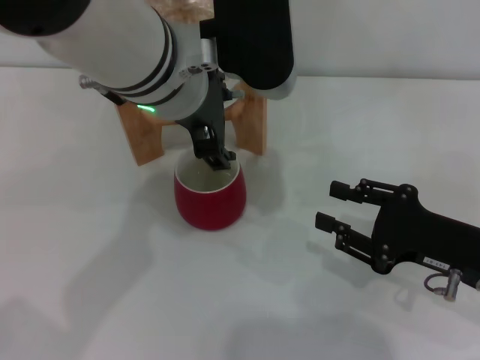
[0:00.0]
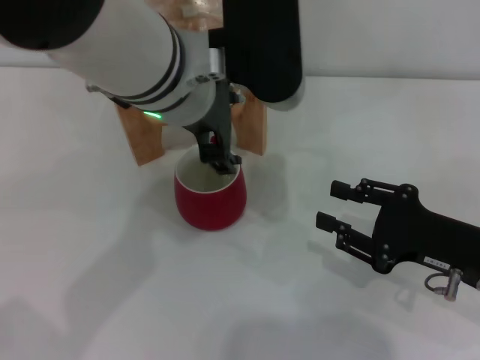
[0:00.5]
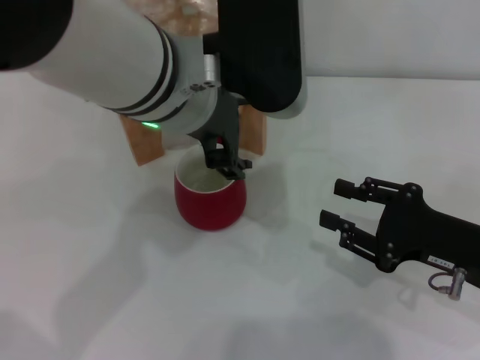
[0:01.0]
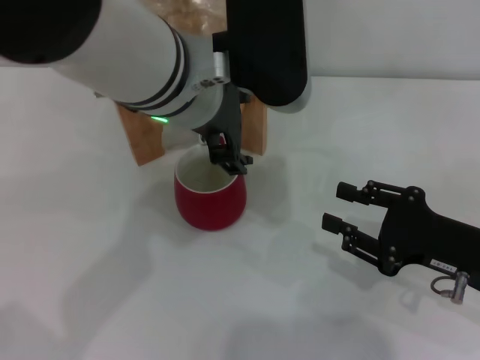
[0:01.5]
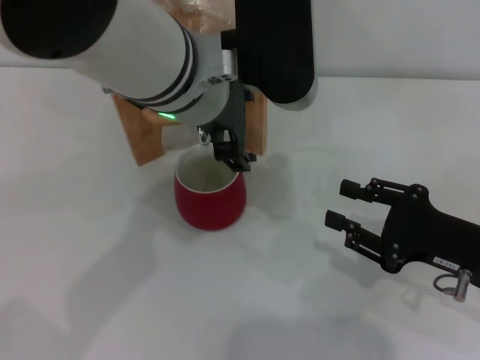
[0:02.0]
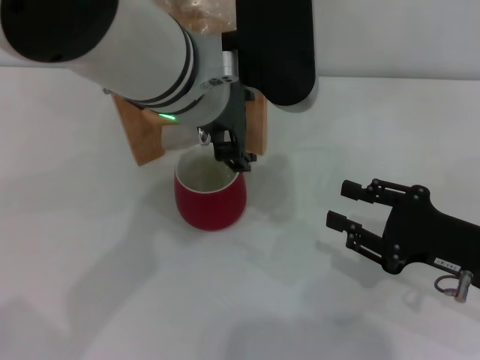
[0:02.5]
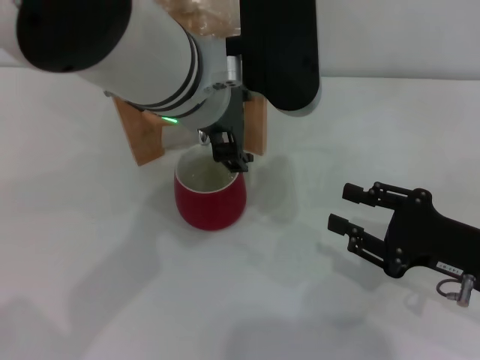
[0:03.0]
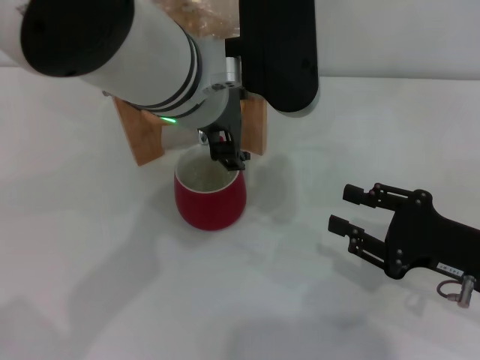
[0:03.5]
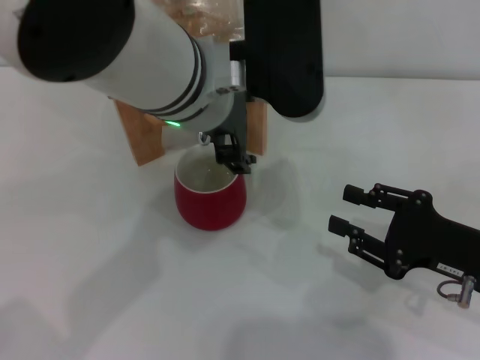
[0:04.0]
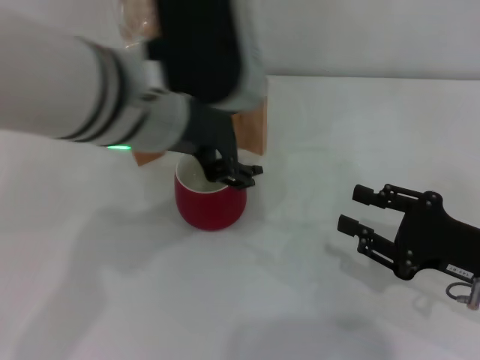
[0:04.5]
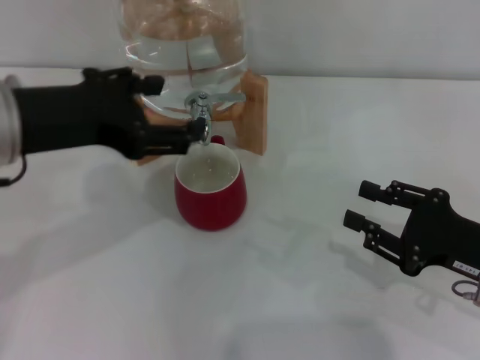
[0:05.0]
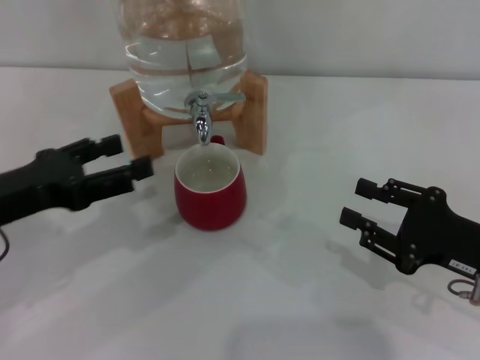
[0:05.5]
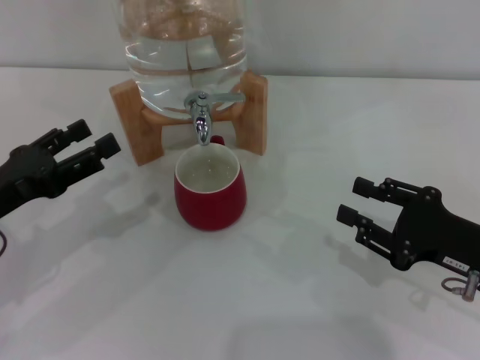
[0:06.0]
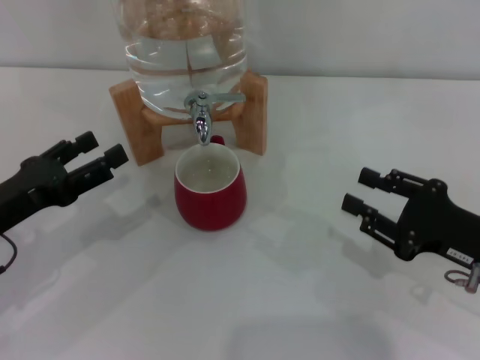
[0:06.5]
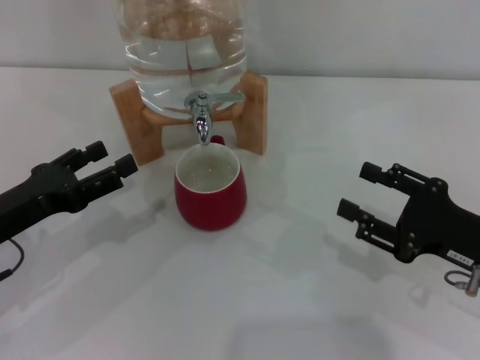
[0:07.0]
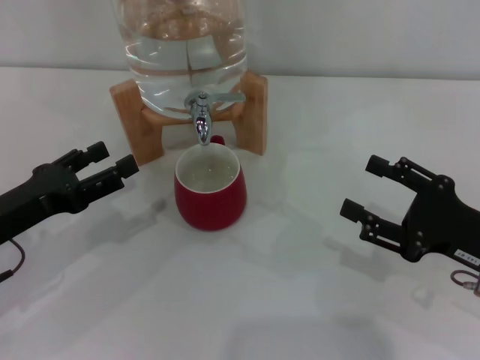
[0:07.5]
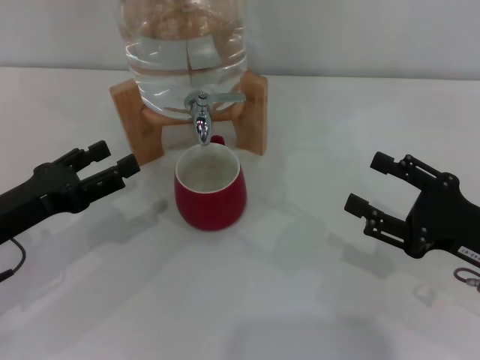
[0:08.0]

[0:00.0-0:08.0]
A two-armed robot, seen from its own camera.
Task of the whole recording: the right gripper pick up the red cup and place it horizontally under the faucet, the left gripper turn on the faucet to fill the cup, and then turn off the faucet.
Step, 0.0 to 4.5 s: Close the dispenser valve with the left gripper.
0.0 to 2.0 s: The grippers stay close to where they were, moving slightly.
2.0 to 4.0 s: Both grippers stay put.
4.0 to 6.0 s: The left gripper shifts some 30 cm to the left and downward.
6.0 to 8.0 s: The right gripper opens up.

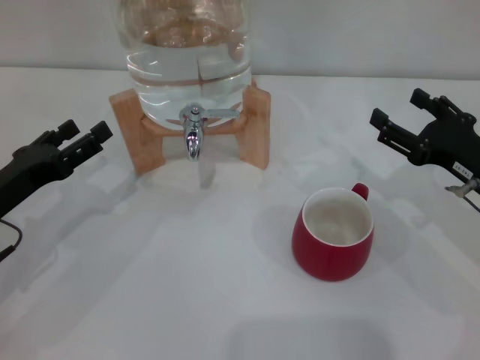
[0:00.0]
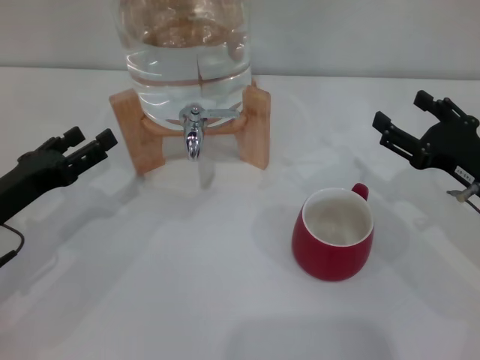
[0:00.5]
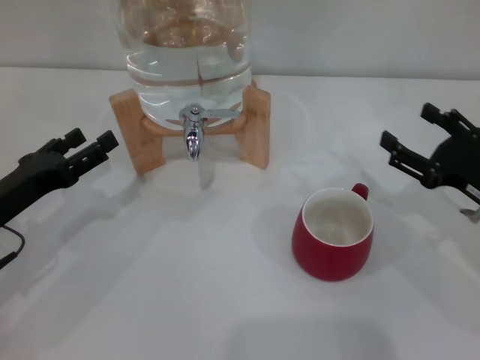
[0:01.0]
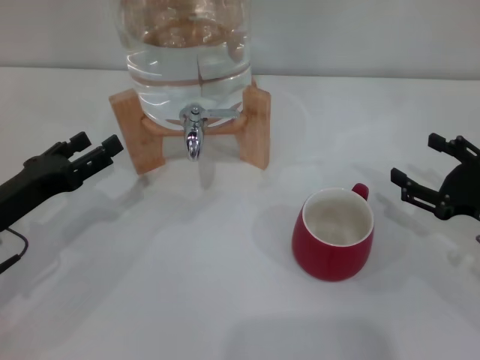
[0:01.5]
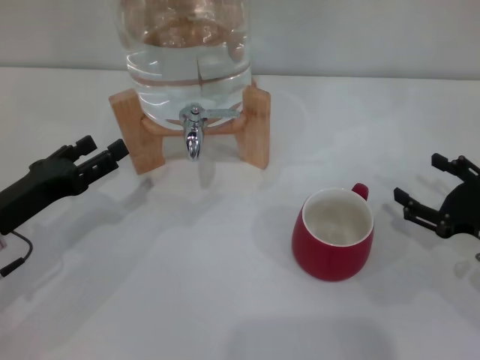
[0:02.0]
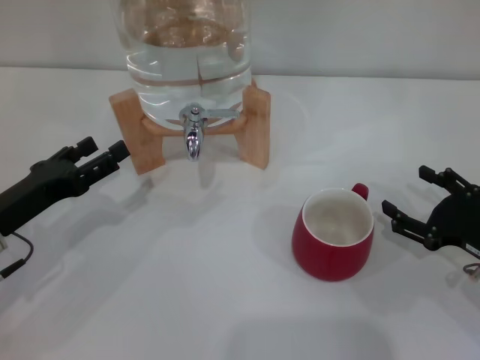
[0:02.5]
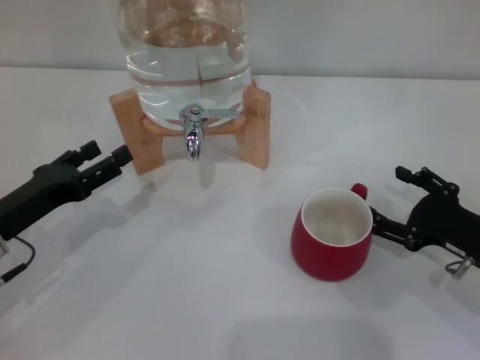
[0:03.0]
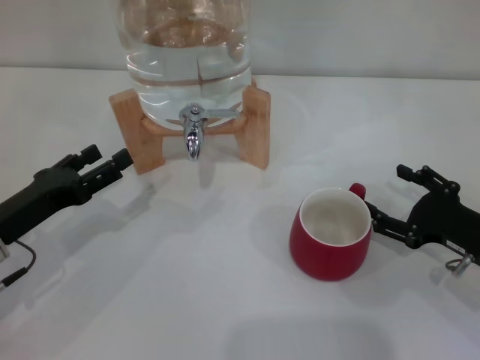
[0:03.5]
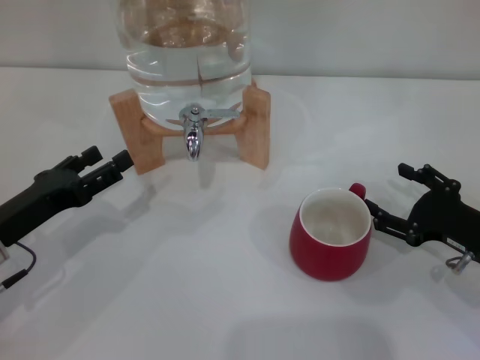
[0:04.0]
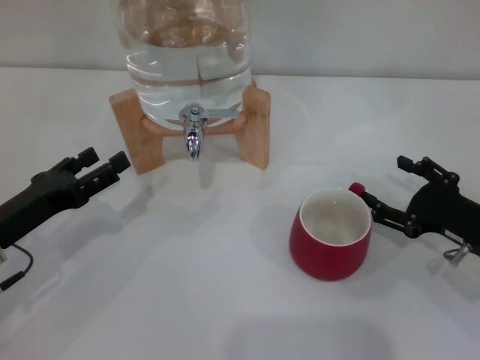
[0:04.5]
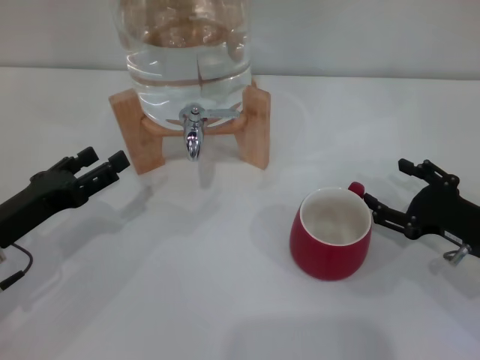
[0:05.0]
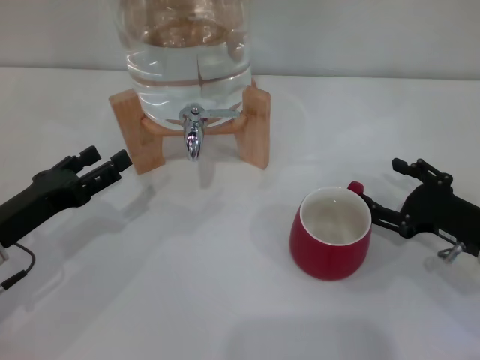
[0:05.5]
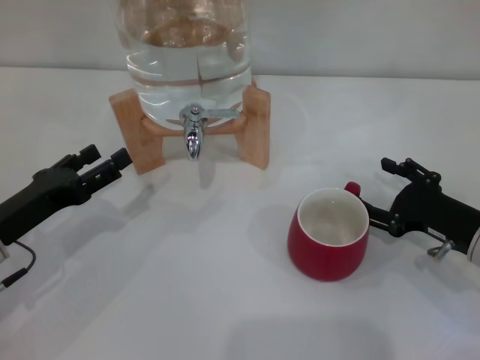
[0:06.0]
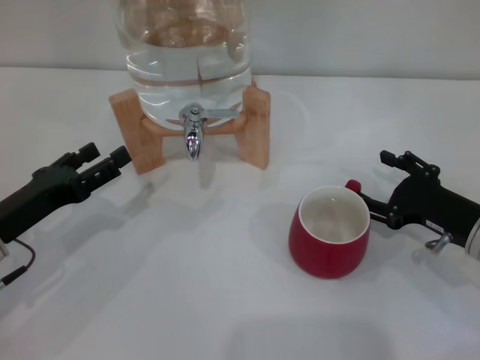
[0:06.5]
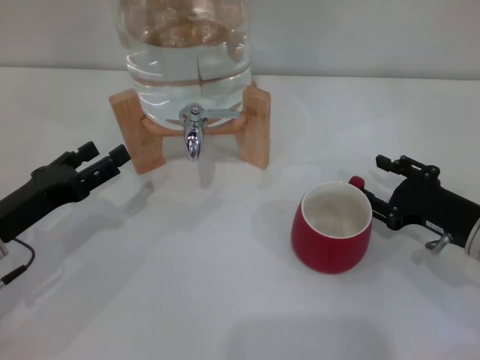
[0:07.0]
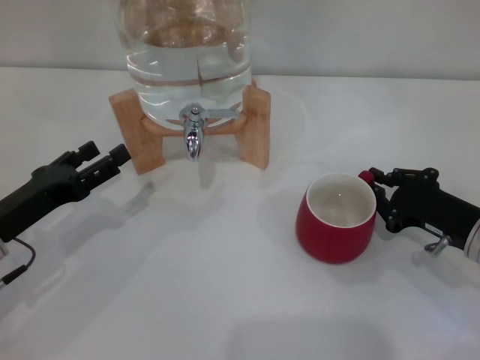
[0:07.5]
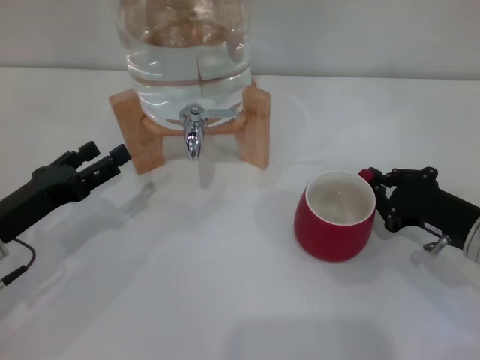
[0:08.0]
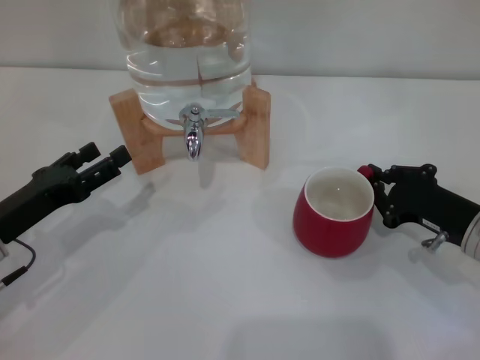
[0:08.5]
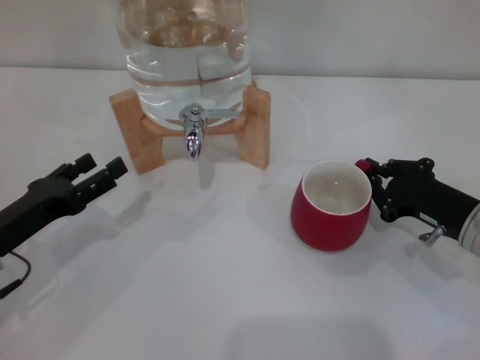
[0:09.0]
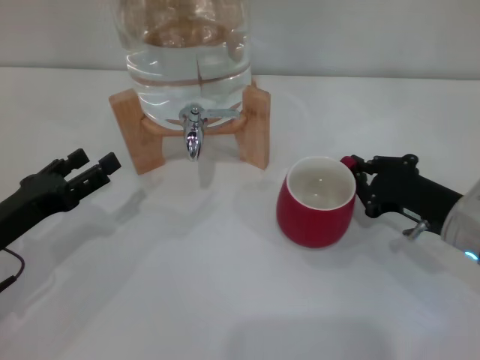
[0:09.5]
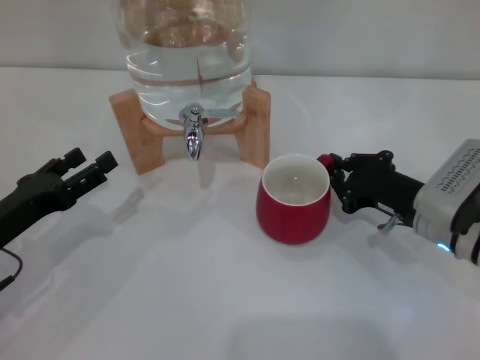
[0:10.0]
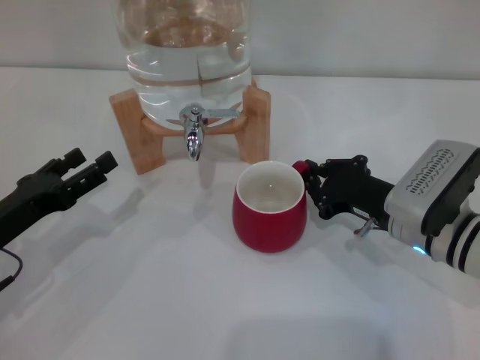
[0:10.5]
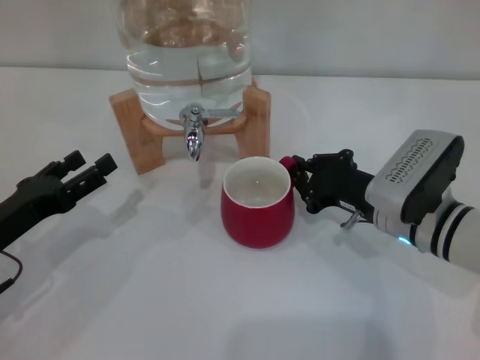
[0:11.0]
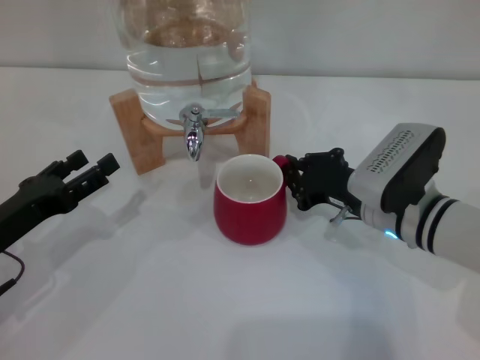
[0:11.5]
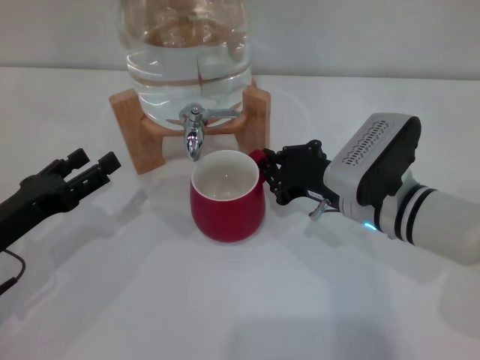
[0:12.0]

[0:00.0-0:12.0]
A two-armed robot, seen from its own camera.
Task of the whole recording: the right gripper pick up the red cup and place it horizontally under the faucet, the left gripper turn on the faucet to fill the cup, and then turn off the faucet.
0.0 to 2.0 s: The right gripper changes place by about 5 cm.
2.0 to 6.0 s: There are only small adjustments of the grippers.
6.0 to 8.0 s: The right gripper closes.
8.0 to 10.0 s: The right gripper shifts approximately 5 cm to the left.
10.0 to 12.0 s: The right gripper shifts about 10 cm to the left.

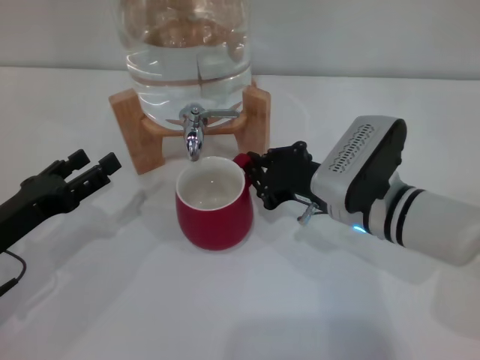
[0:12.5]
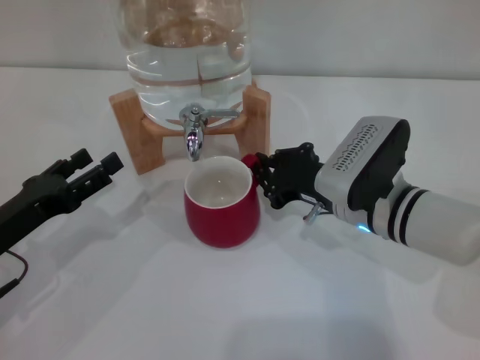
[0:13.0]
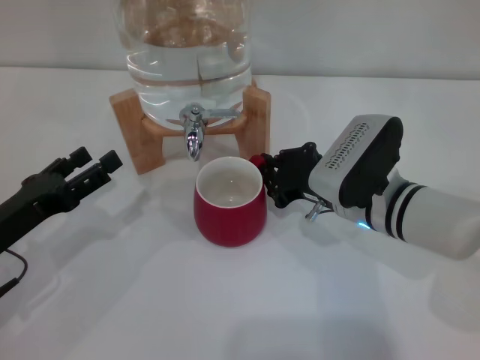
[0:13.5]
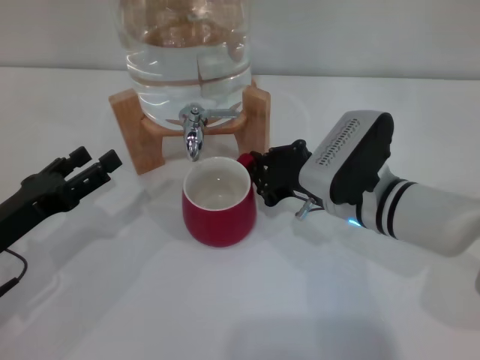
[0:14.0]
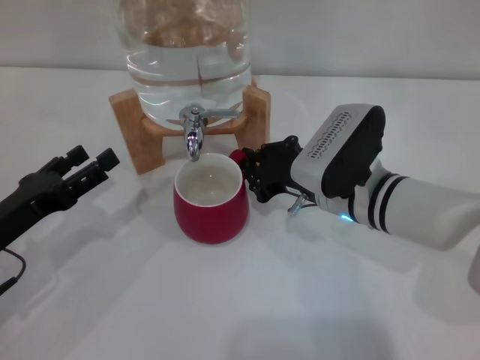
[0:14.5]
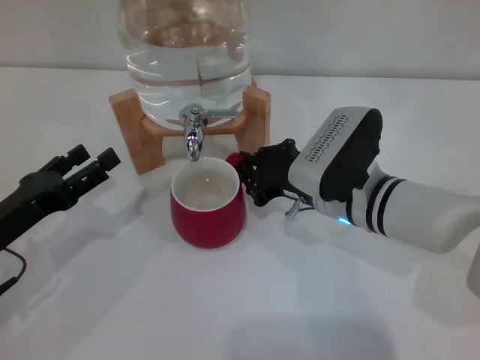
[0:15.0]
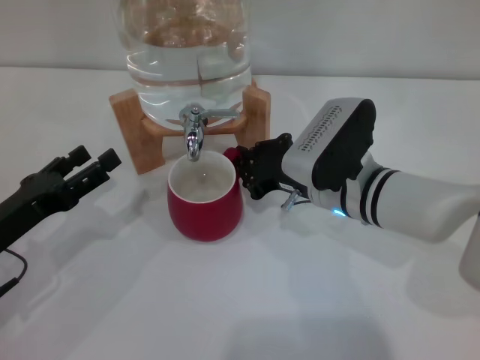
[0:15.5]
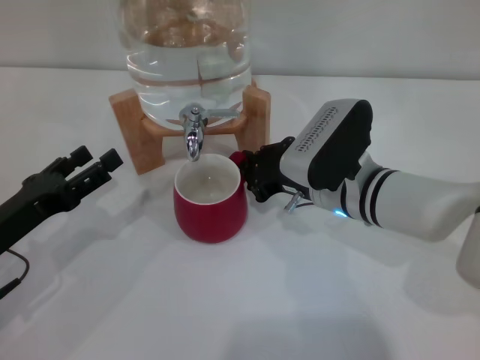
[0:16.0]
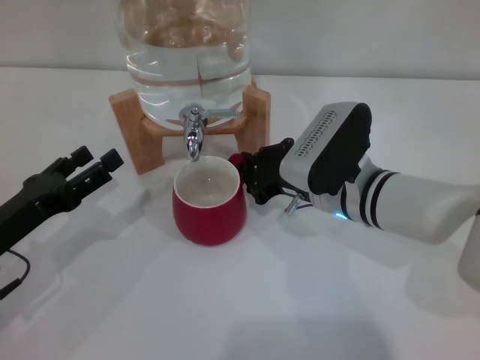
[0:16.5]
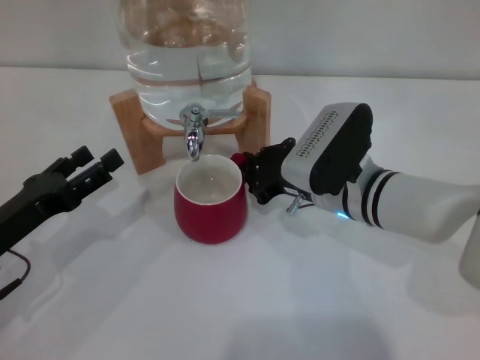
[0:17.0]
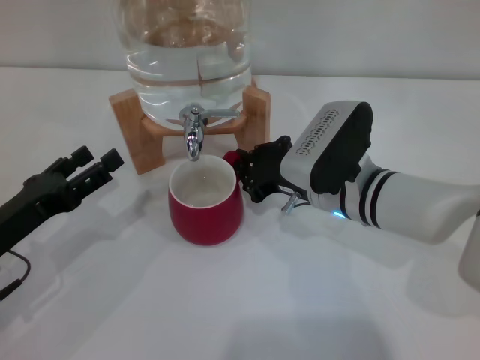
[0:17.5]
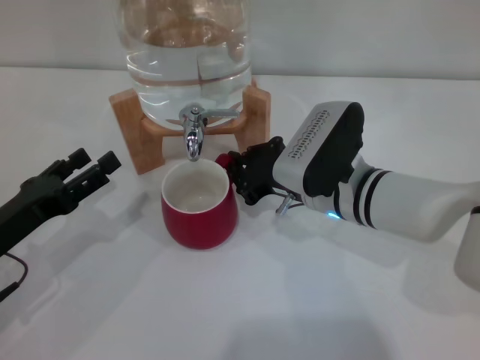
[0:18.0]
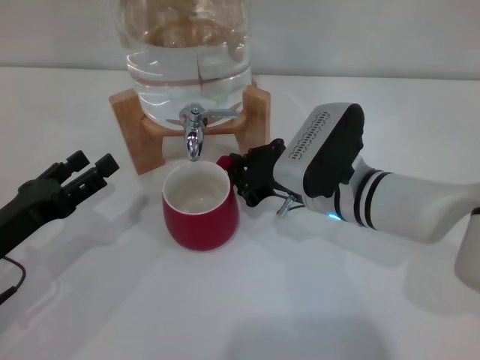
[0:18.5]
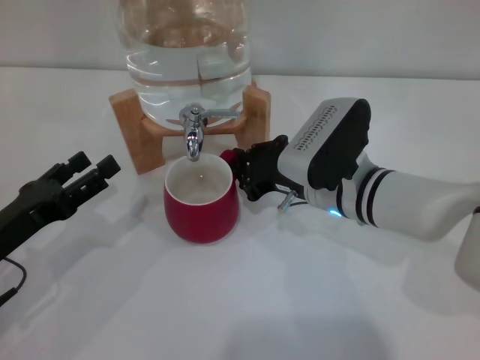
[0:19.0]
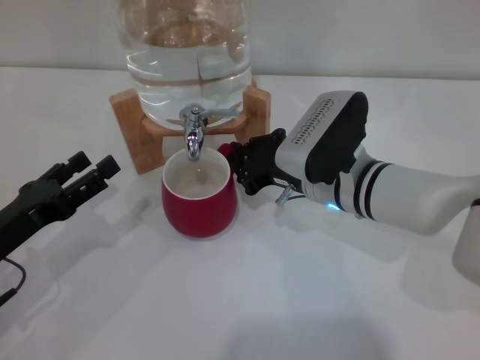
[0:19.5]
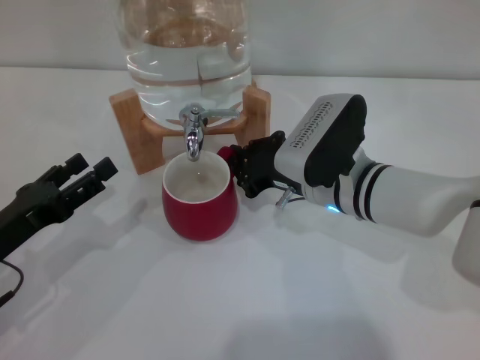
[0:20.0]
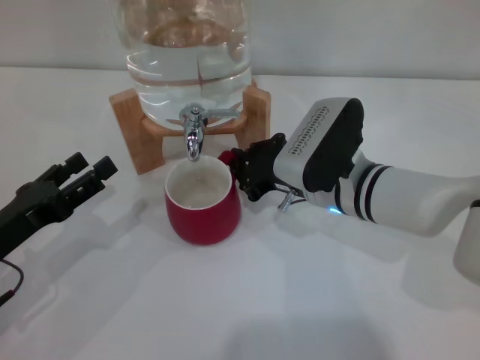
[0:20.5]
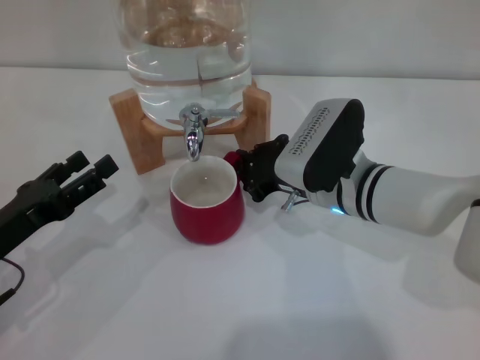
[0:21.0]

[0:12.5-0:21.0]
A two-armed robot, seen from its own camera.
Task of the whole recording: the right gripper pick up the red cup and place it horizontally under the faucet, the left gripper turn on the faucet to fill the cup, and then turn off the faucet.
12.5 to 14.5 s: There are only small adjustments of the grippers.
14.5 to 16.5 s: Both grippers stay about where they are.
16.5 to 21.0 s: Neither gripper changes place.
